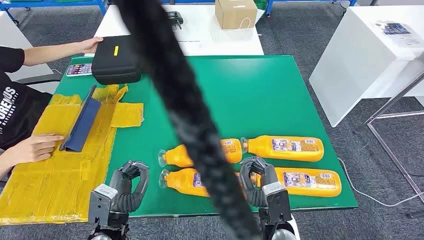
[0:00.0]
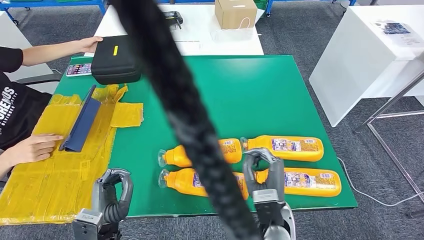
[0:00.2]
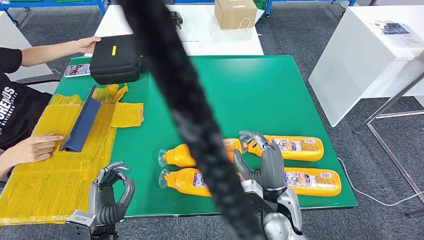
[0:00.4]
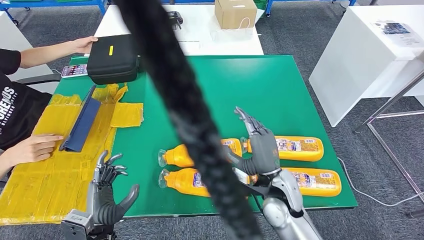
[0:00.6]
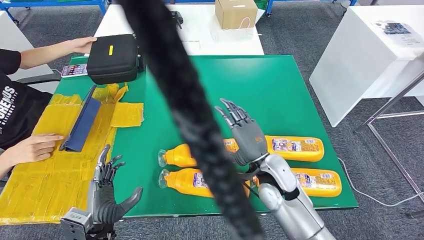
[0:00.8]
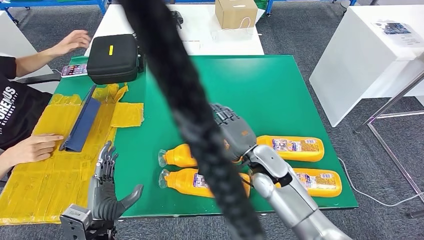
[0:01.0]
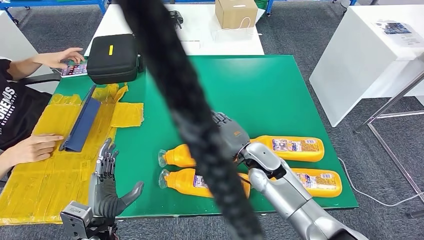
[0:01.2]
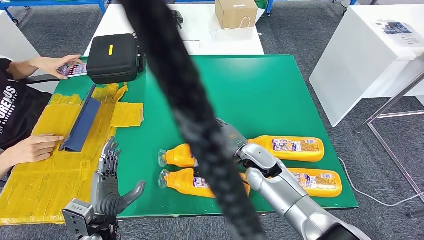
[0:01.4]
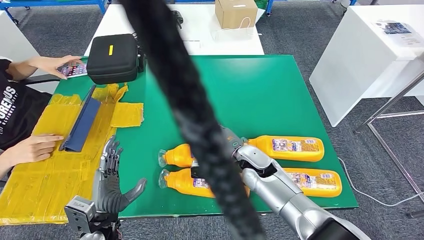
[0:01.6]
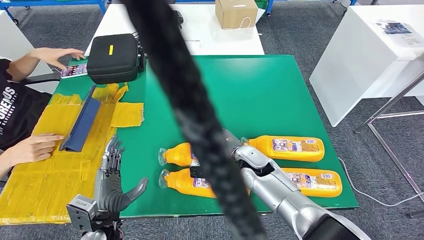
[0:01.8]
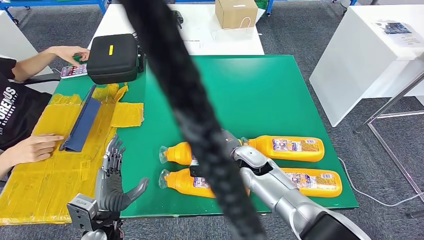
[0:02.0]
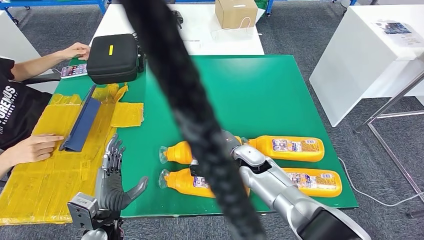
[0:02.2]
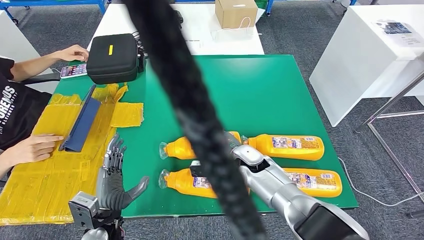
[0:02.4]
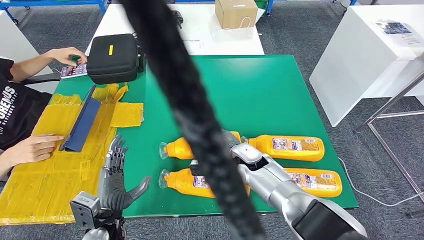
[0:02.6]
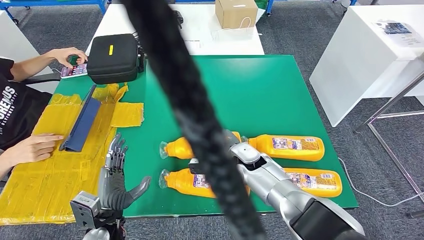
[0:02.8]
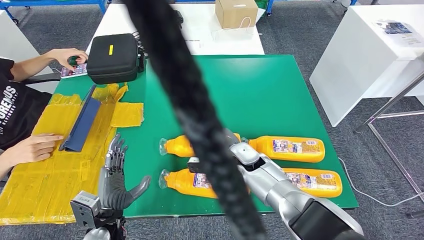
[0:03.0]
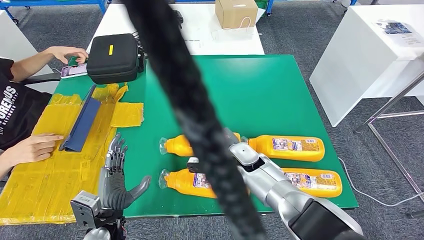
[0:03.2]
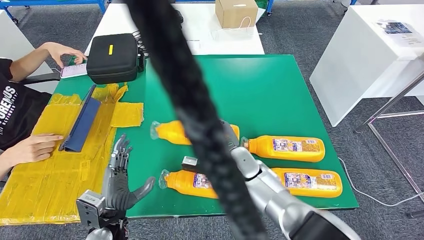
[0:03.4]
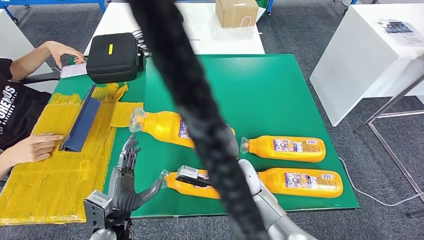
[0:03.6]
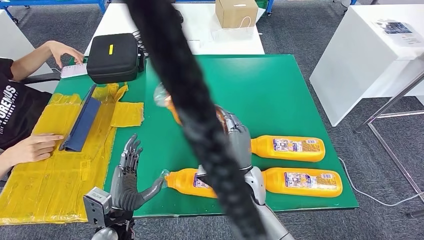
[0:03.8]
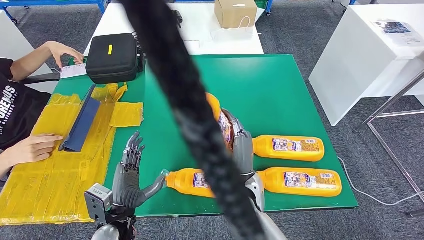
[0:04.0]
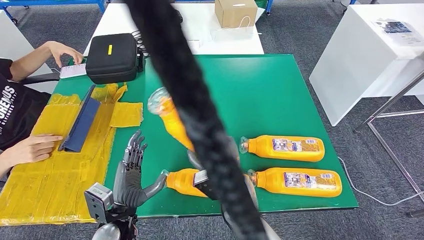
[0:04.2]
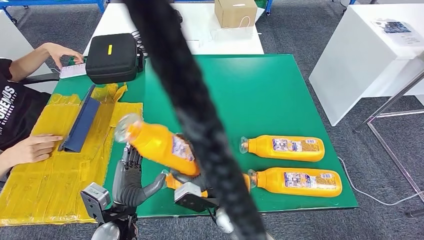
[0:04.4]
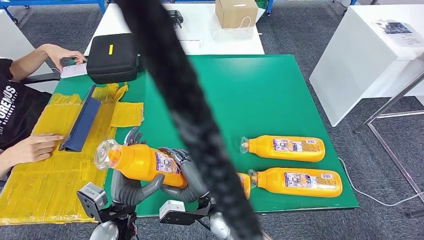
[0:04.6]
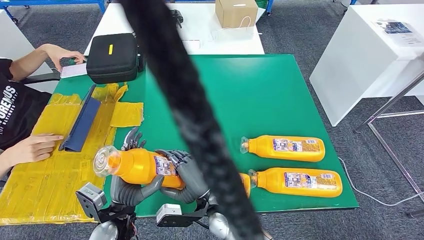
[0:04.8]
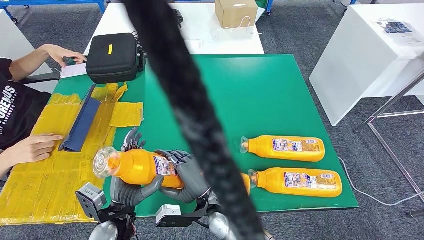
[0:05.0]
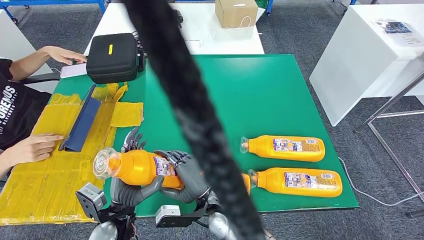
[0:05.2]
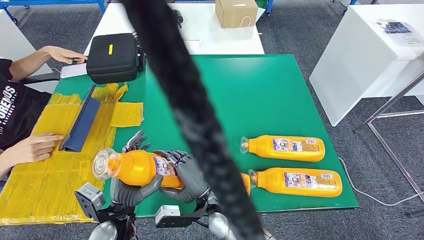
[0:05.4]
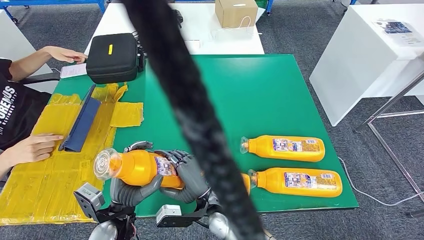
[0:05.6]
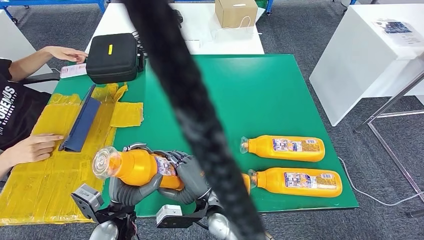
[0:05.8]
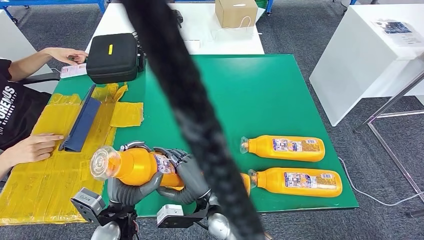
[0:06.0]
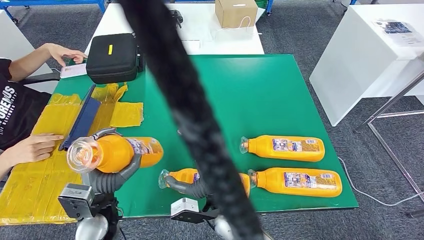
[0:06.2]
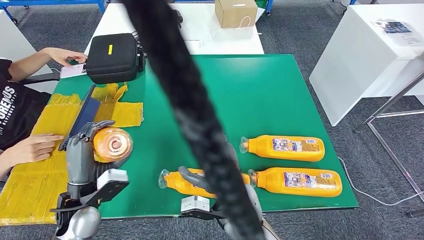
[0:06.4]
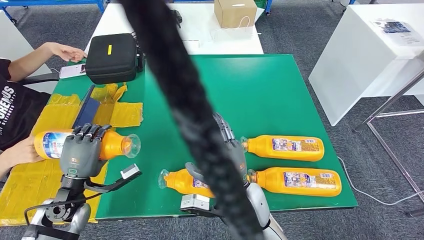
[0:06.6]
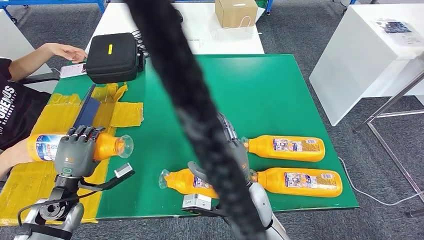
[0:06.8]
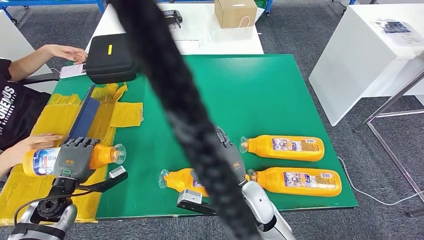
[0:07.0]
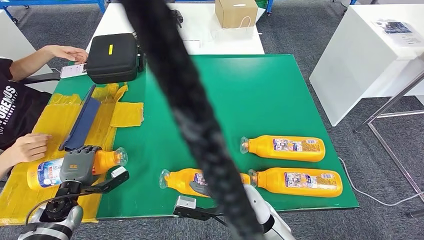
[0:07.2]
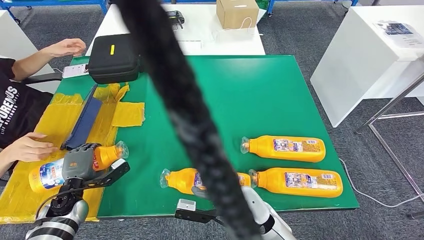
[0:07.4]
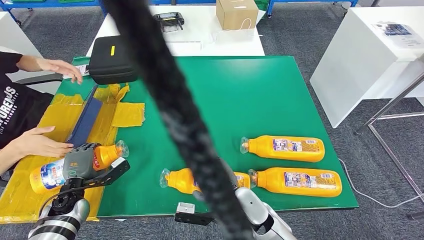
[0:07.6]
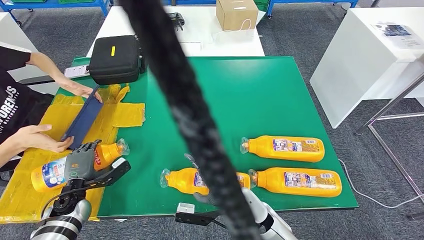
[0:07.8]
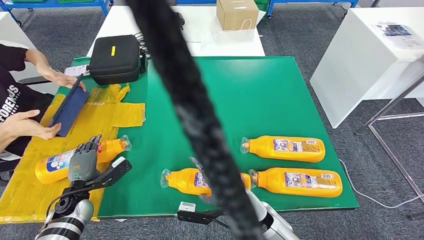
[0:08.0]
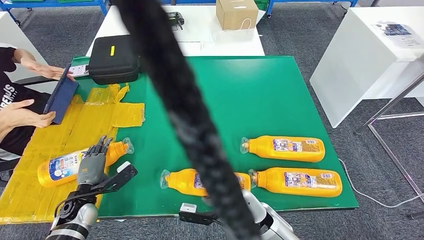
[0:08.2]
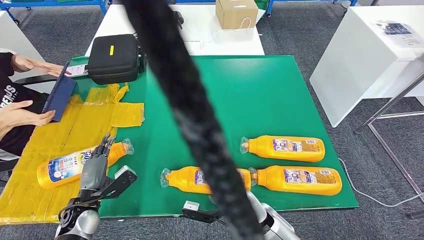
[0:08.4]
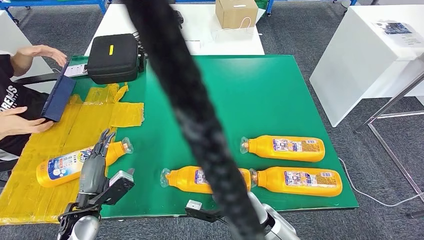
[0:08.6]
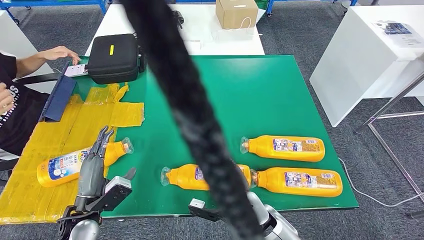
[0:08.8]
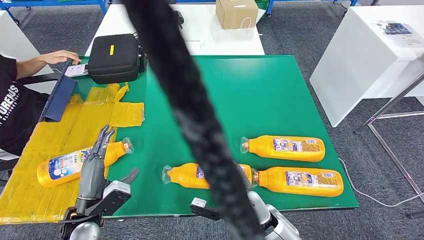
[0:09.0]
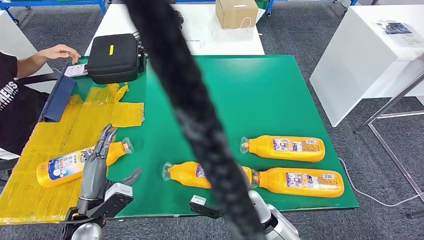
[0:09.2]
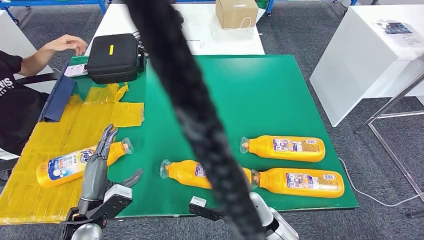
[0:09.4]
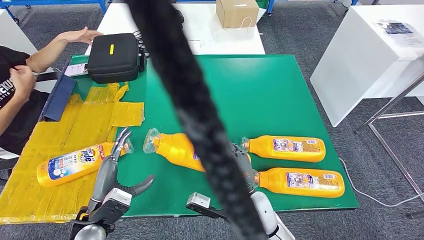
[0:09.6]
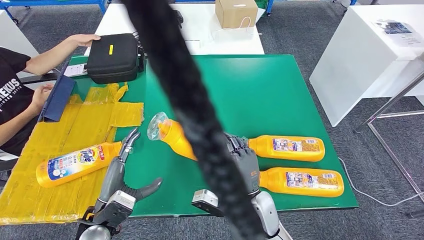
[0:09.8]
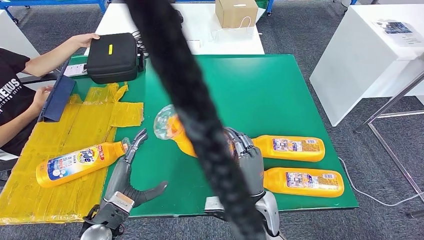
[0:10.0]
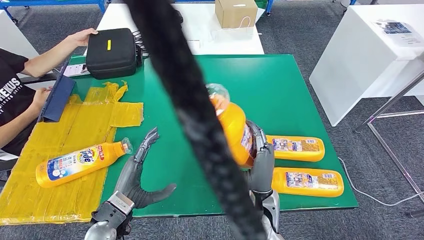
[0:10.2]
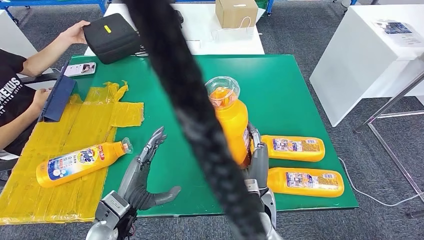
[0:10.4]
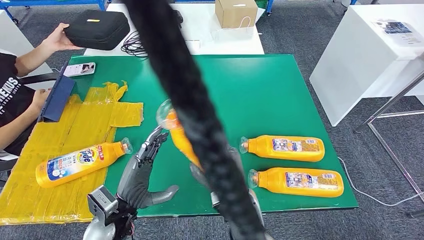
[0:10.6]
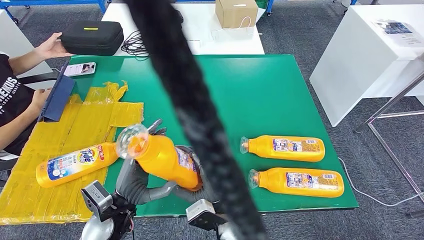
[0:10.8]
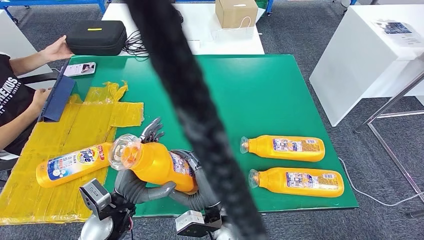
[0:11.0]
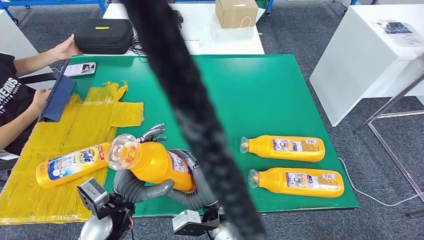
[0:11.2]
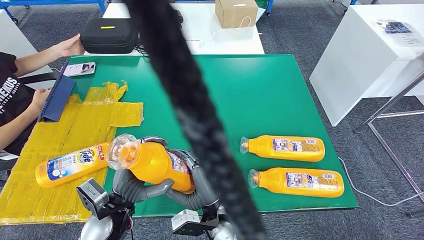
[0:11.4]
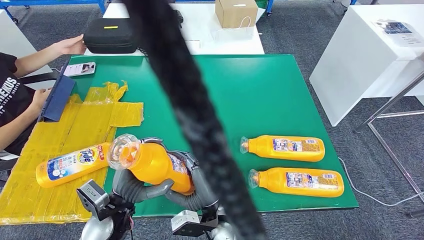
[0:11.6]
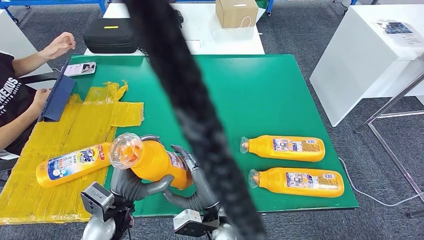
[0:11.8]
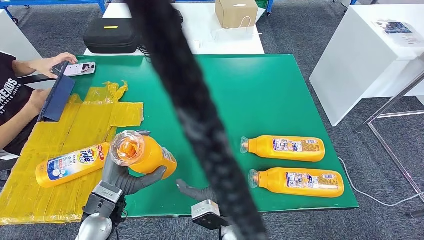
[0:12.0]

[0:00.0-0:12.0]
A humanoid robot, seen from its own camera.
Step, 0:00.0 to 0:04.8: Take the fast-moving consumer goods bottle from the table.
Step, 0:05.2 to 0:09.4: Flip the fast-moving consumer goods bottle to the front side.
0:01.6 to 0:03.0: The hands stay close to where they were, moving slightly.
0:03.0 to 0:04.4: The right hand heads backward and to the left, covering approximately 15 cm.
0:04.4 to 0:06.0: There are only small adjustments of the hands.
0:09.0 to 0:10.4: The left hand shifts roughly 10 cm to the right. Meanwhile the right hand travels upward by roughly 5 cm.
0:10.4 to 0:12.0: The right hand goes roughly 5 cm to the left.

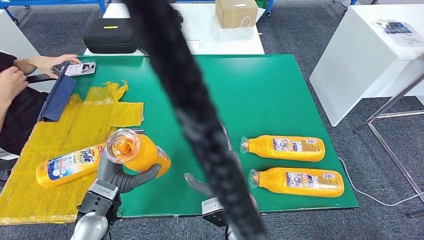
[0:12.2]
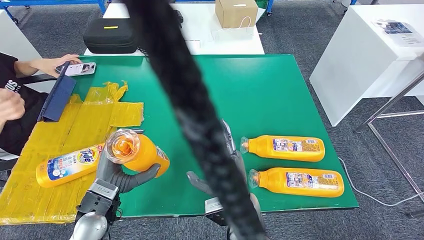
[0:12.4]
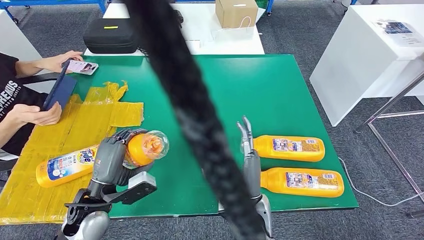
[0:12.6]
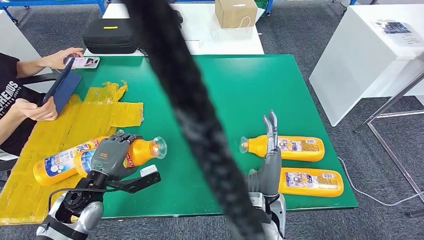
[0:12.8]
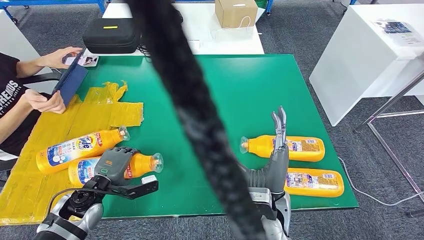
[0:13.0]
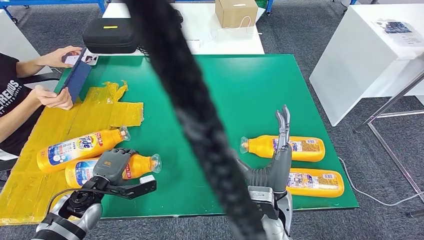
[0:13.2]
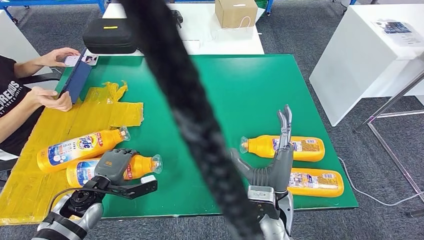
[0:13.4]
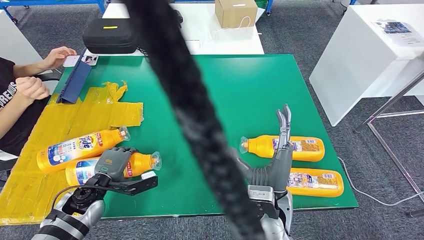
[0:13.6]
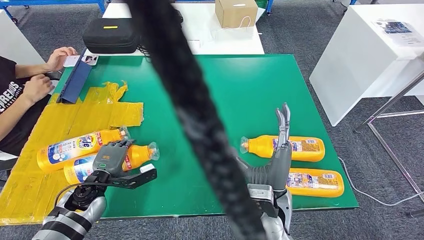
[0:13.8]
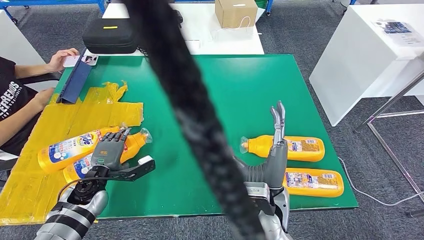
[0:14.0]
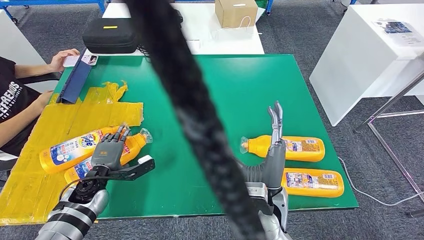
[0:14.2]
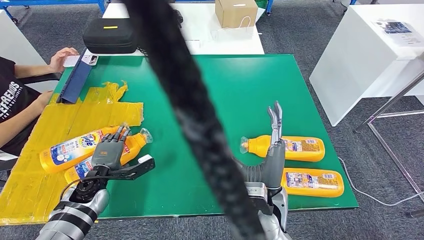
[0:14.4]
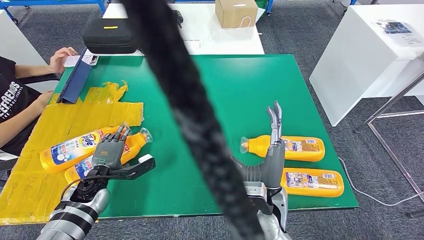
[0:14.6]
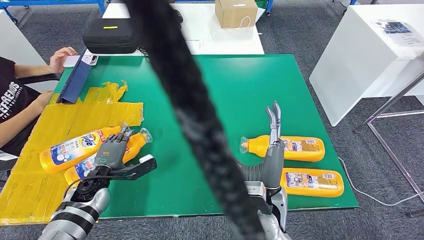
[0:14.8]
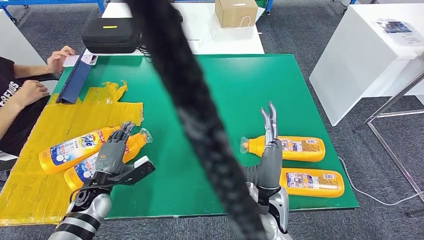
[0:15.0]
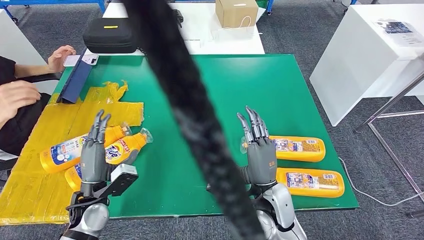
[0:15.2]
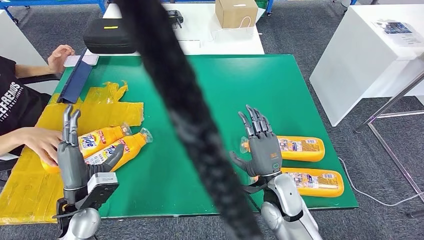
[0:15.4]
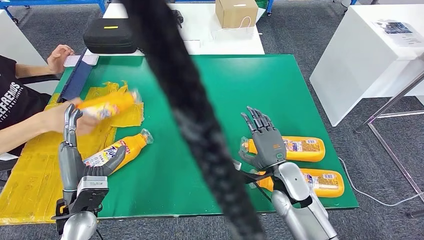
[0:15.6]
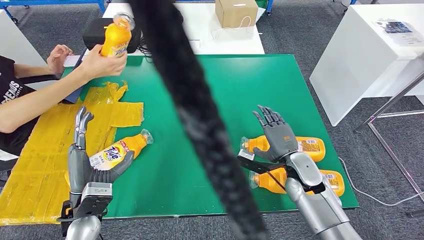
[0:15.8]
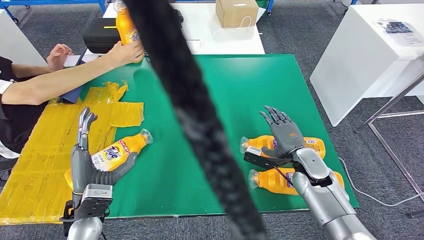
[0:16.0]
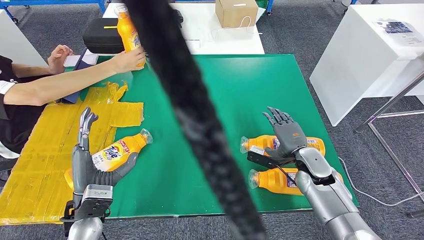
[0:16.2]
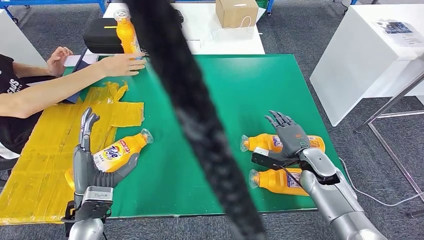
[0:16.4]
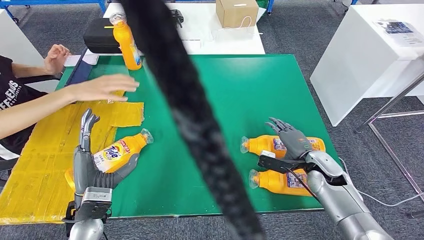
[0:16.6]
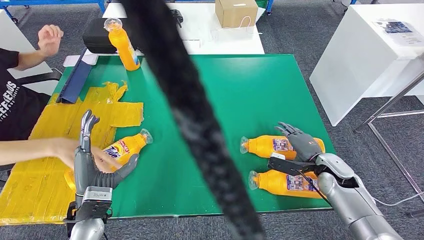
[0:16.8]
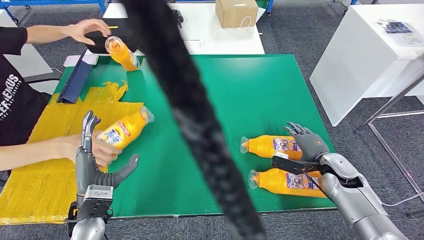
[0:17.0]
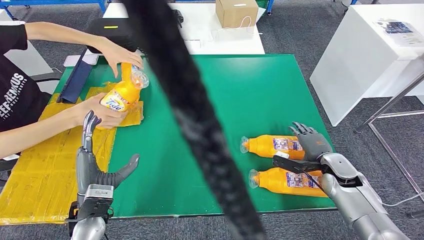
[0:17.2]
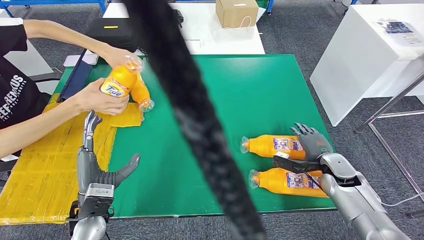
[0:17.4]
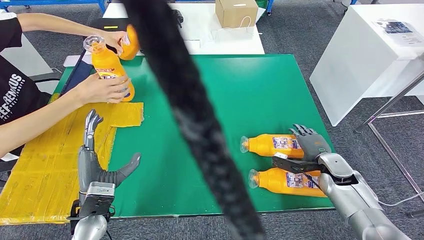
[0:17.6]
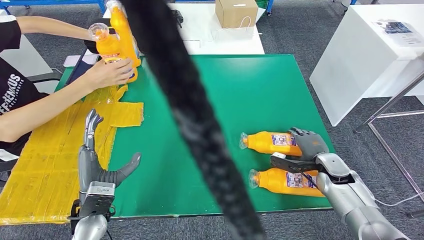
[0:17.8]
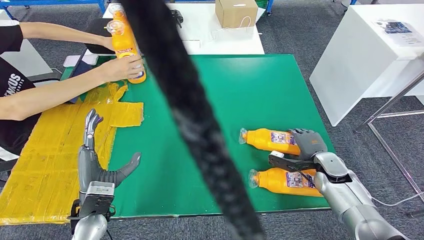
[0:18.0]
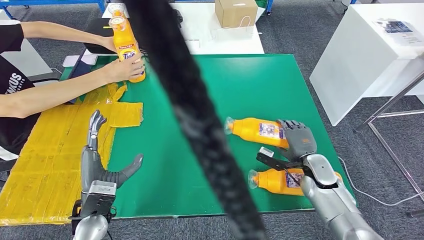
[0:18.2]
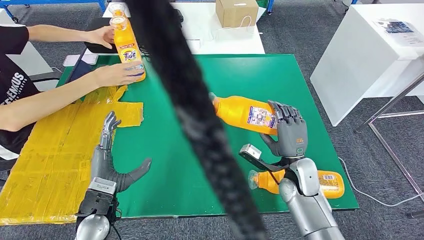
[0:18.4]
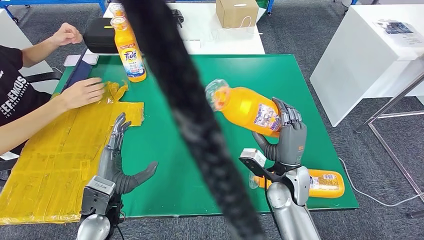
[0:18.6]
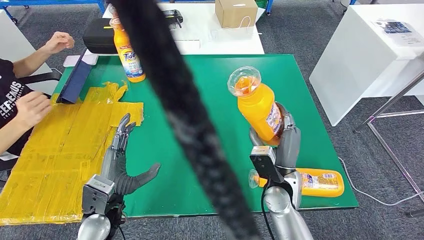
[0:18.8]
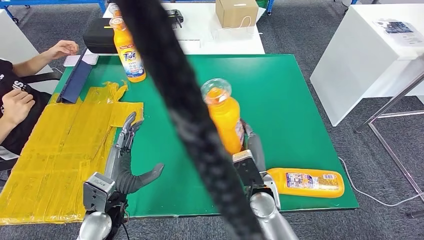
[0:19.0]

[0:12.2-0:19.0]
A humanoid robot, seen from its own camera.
Step, 0:13.0 to 0:16.4: Flip the fast-moving consumer goods bottle to the front side.
0:12.2 to 0:13.6: The left hand goes approximately 10 cm to the left, downward and forward, while the right hand travels to the right by roughly 5 cm.
